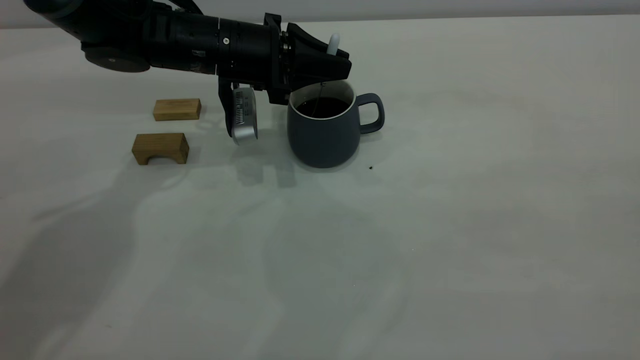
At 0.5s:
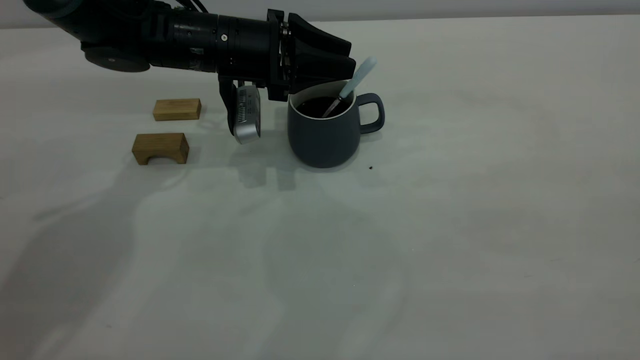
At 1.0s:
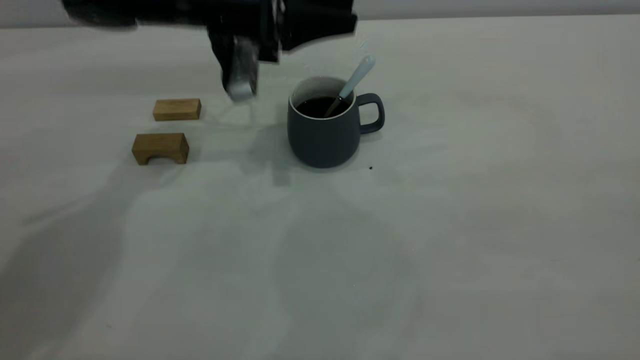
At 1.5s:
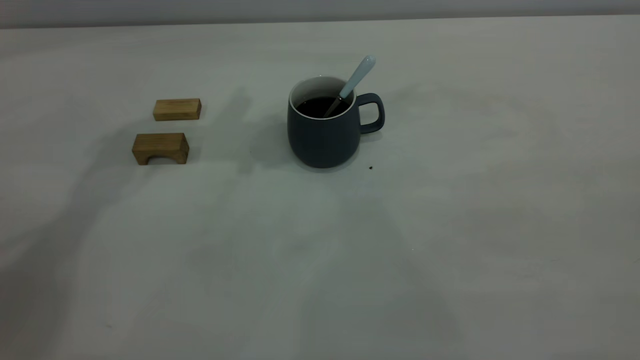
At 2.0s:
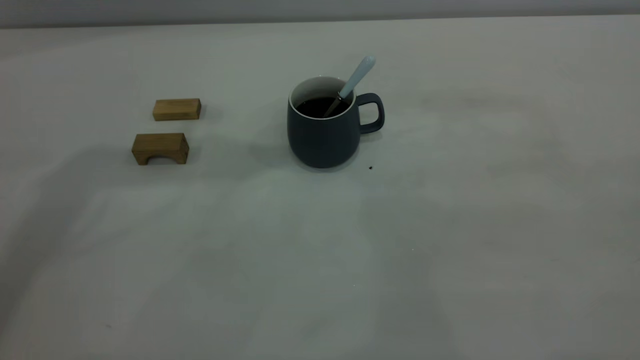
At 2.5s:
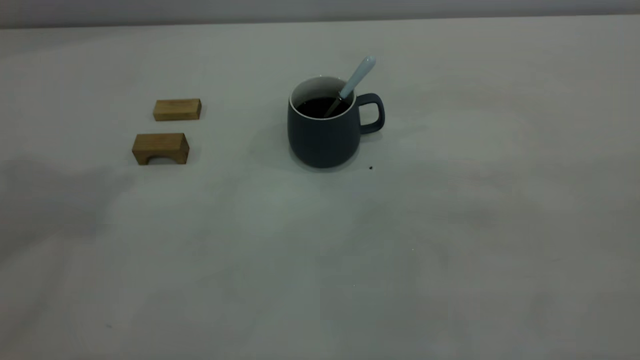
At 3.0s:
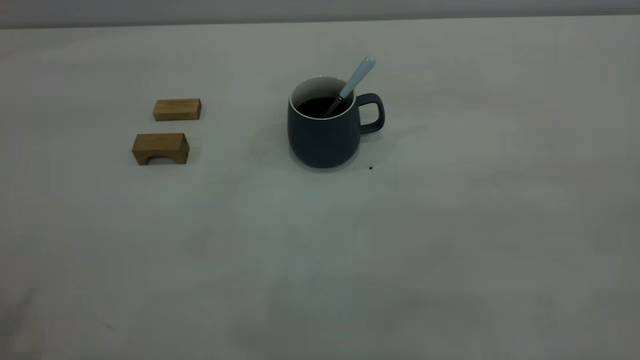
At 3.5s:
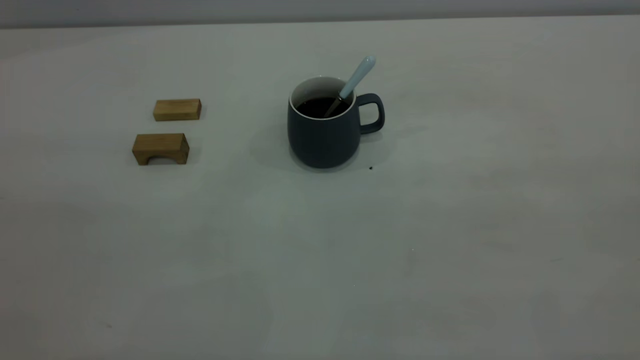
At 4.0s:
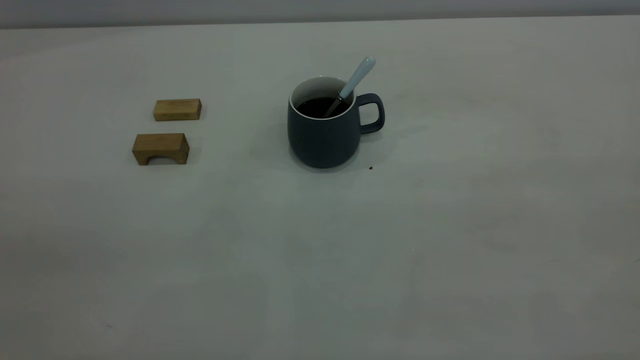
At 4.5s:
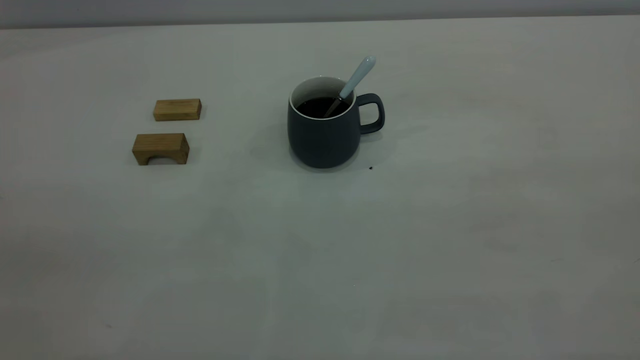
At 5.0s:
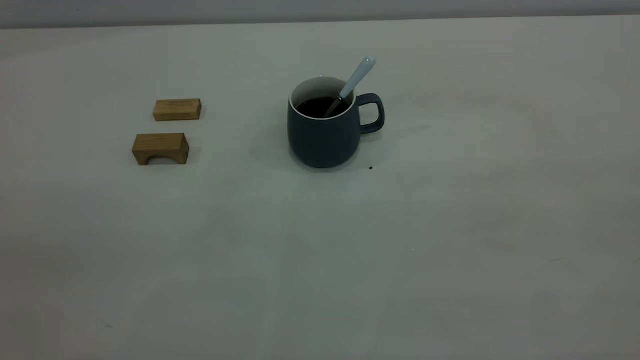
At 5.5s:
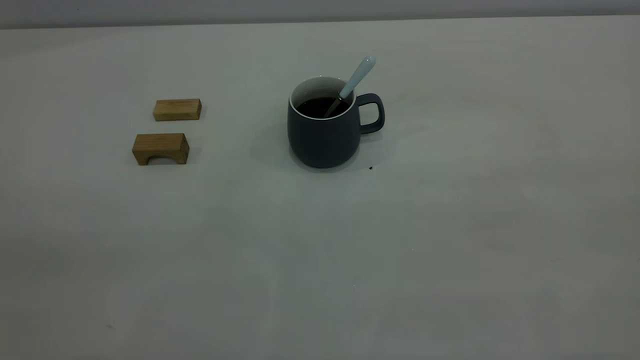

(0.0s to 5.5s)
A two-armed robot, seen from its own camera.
0.0s - 2.0s: The left gripper shifts approximately 35 cm upward, and opens up.
